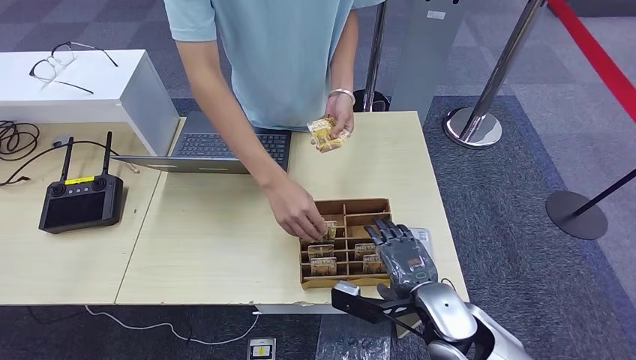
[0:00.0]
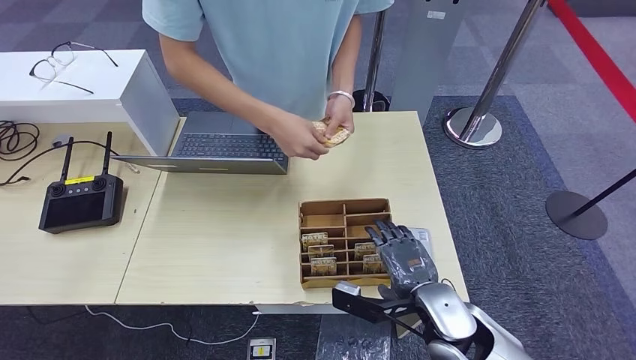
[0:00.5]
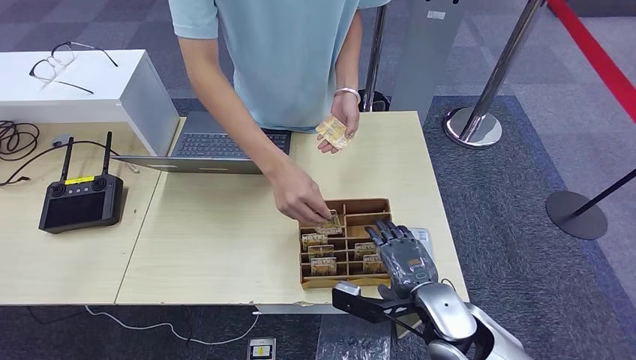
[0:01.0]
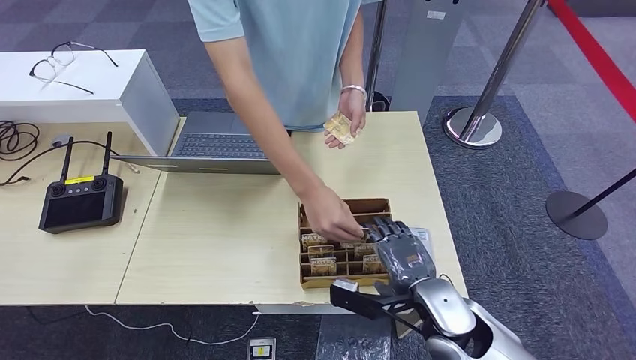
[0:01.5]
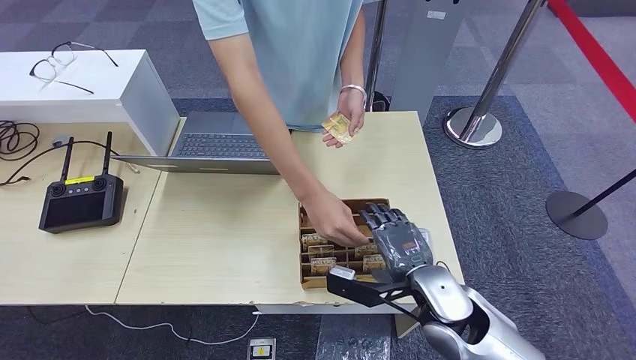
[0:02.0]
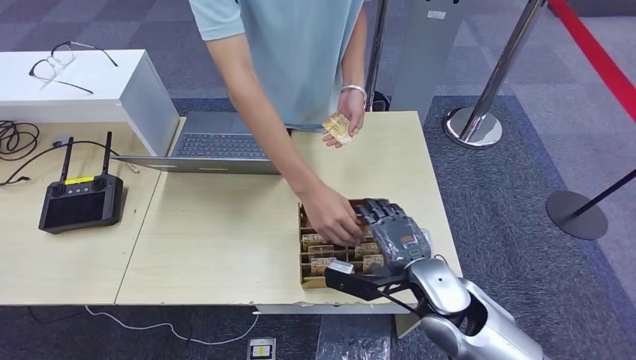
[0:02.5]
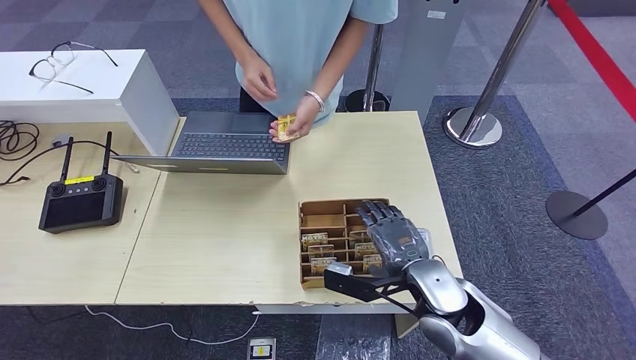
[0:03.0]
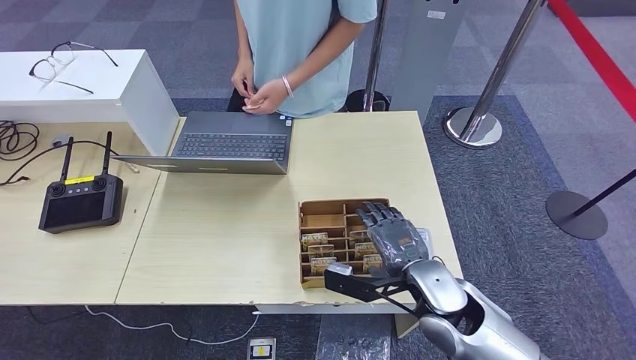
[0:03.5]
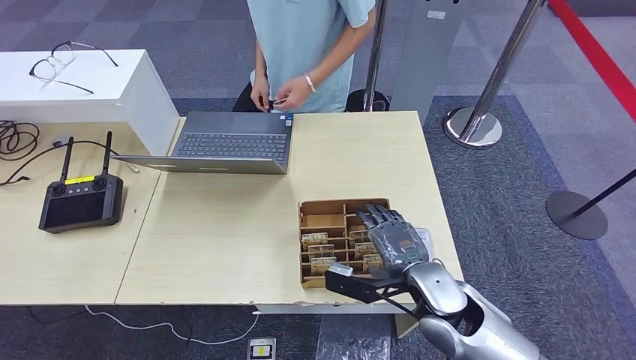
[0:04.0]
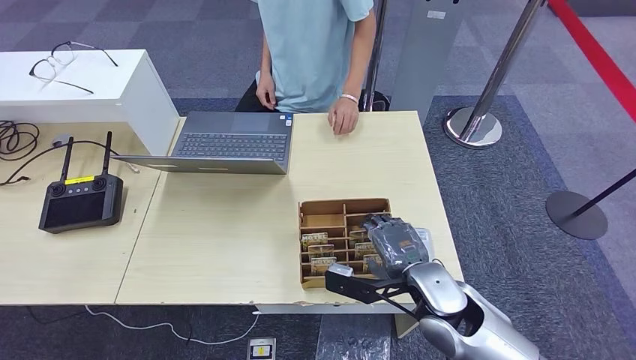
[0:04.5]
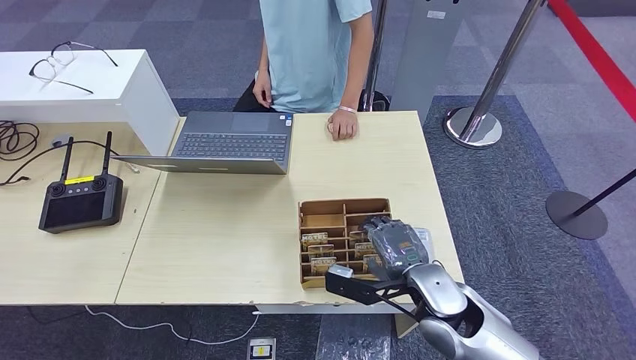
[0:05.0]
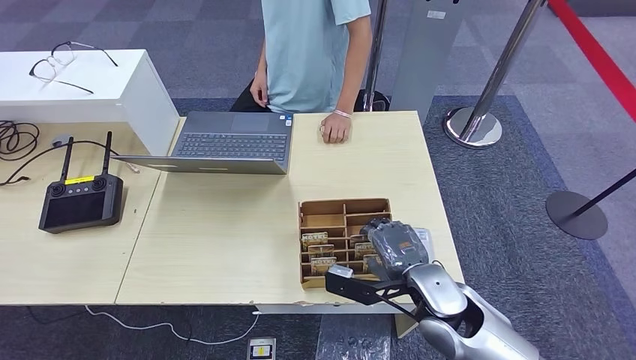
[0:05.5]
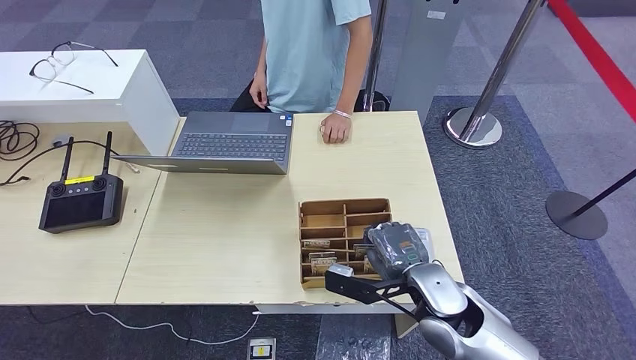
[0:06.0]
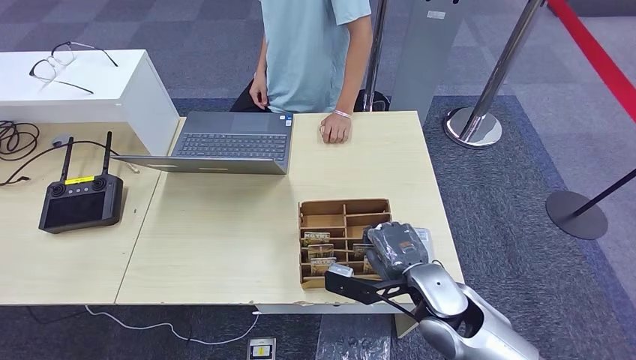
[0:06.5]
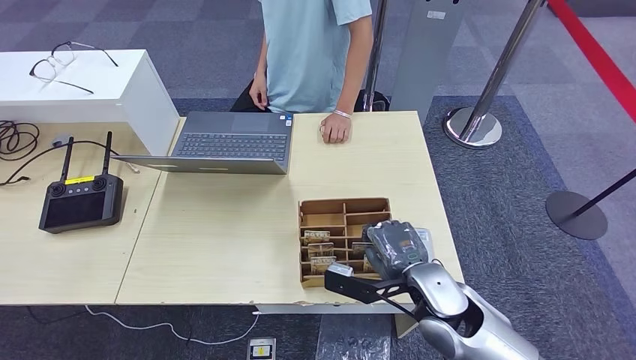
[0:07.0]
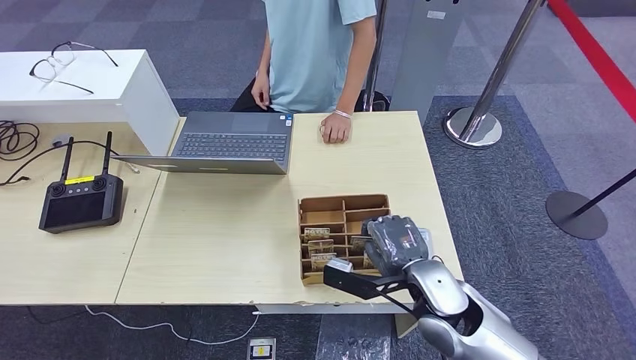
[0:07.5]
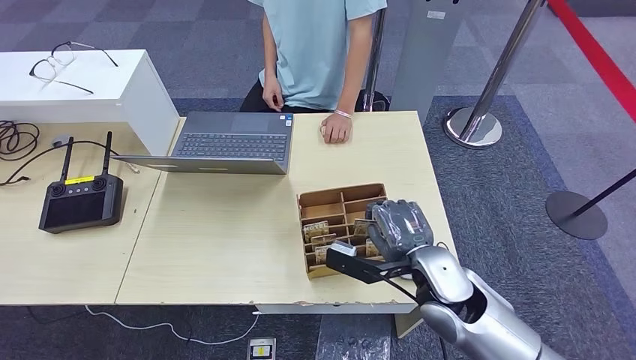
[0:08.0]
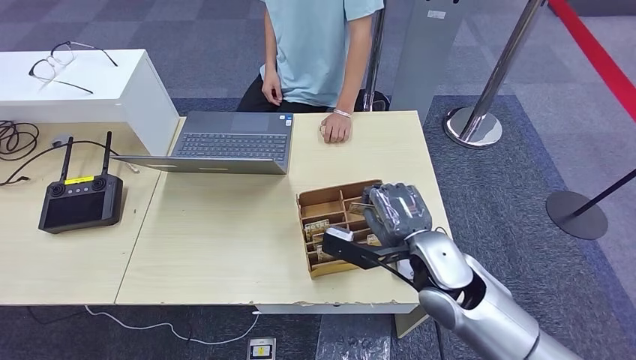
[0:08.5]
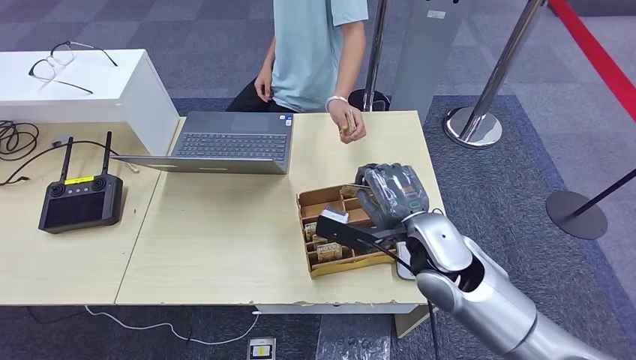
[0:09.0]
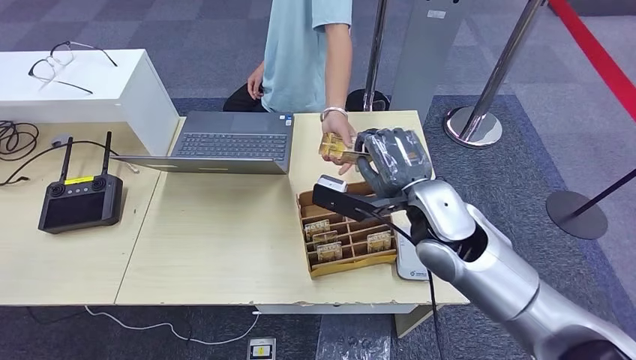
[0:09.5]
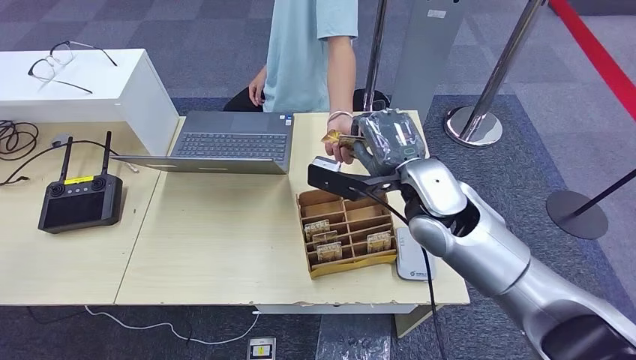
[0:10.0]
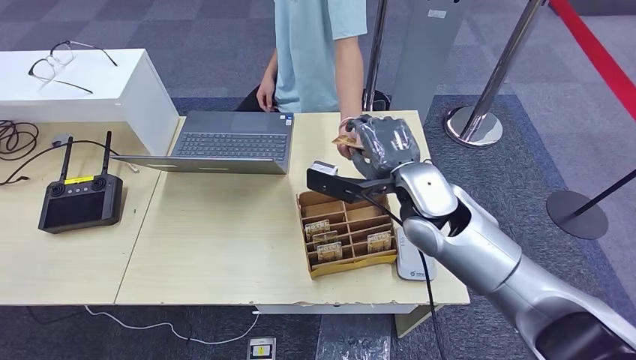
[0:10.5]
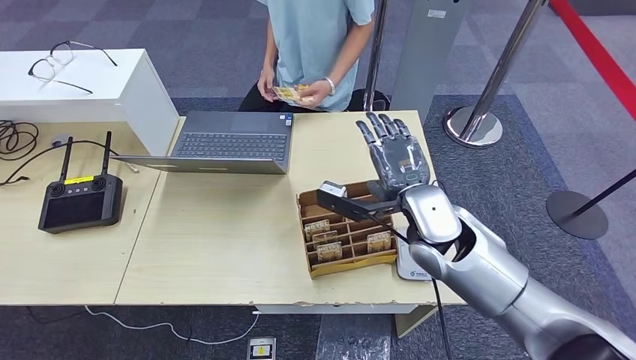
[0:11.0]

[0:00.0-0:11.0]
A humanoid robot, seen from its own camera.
Step, 0:04.0 to 0:08.0: Pick up the room key from the key card box.
Step, 0:09.0 to 0:11.0: Hand the room key to the person.
0:00.0 to 0:02.0: There are only small adjustments of the hands.
0:02.0 to 0:05.5: Both hands stay put.
0:05.5 to 0:07.5: The hands make only small movements.
0:07.5 to 0:09.0: The right hand moves upward, roughly 5 cm.
